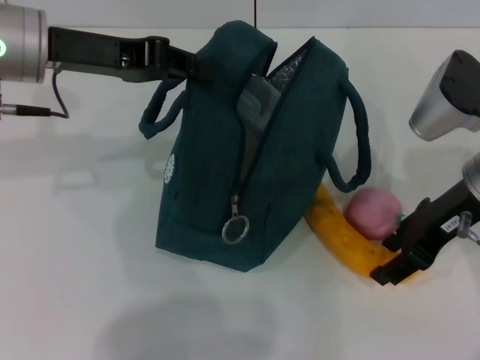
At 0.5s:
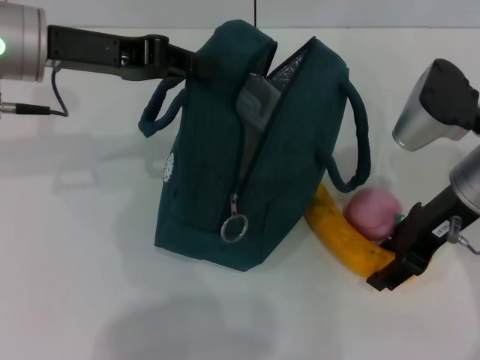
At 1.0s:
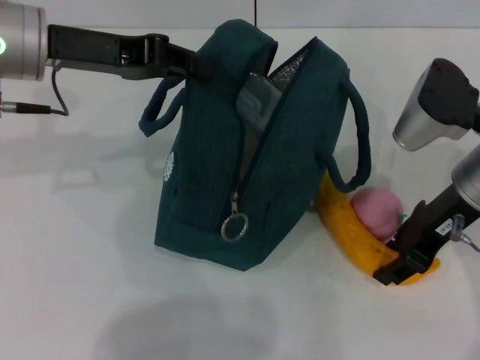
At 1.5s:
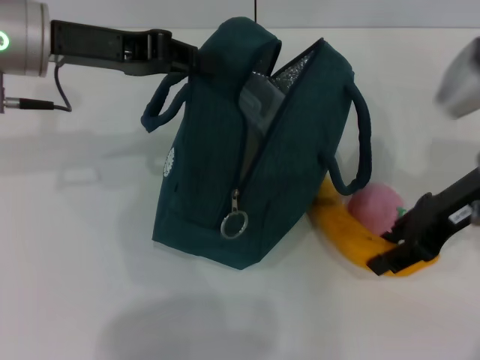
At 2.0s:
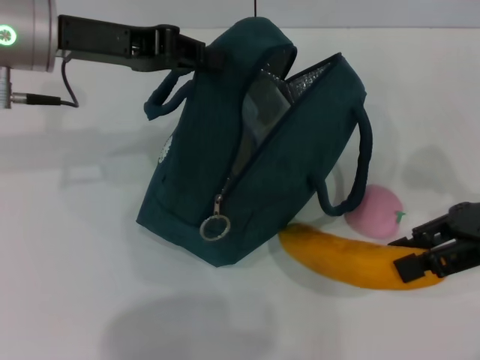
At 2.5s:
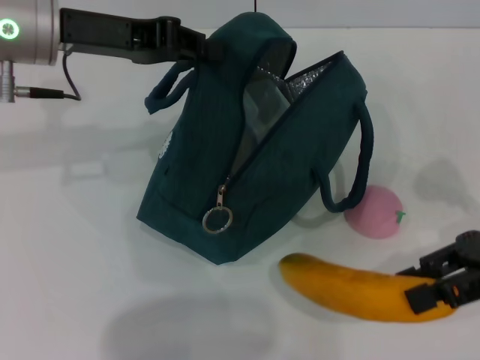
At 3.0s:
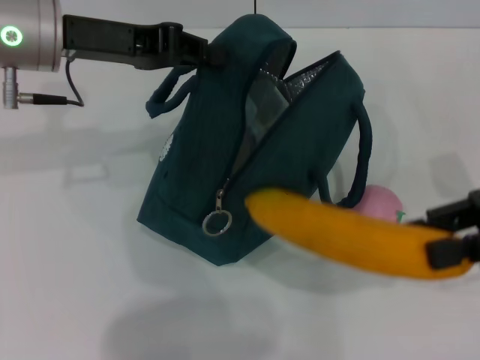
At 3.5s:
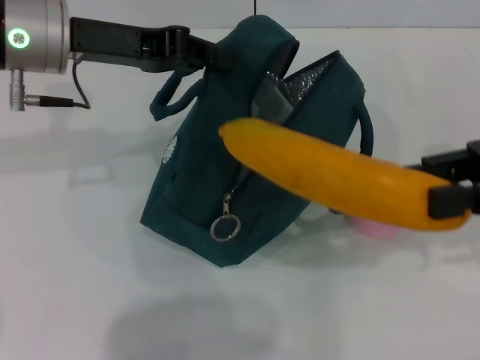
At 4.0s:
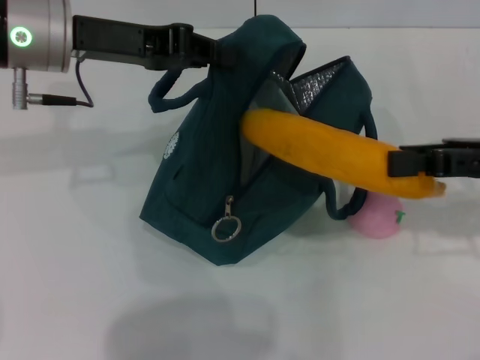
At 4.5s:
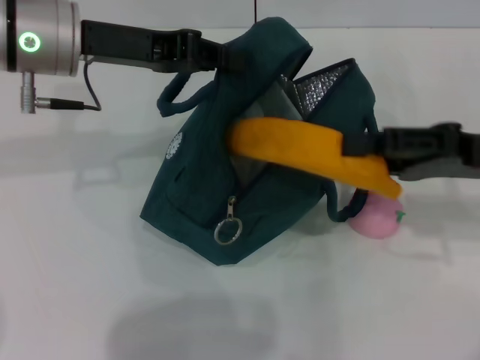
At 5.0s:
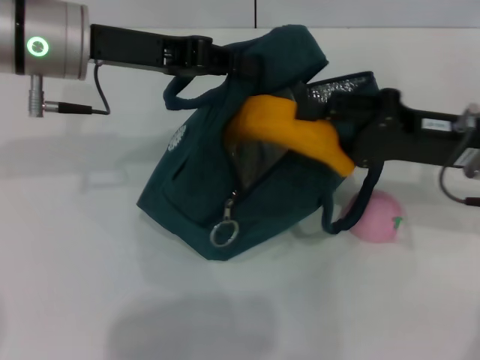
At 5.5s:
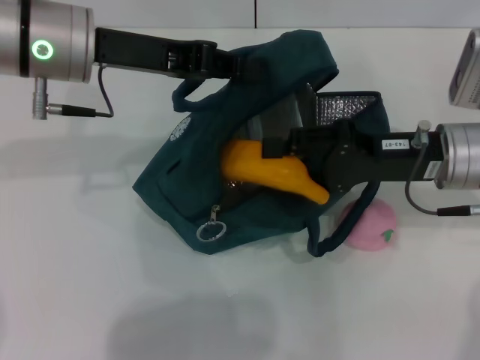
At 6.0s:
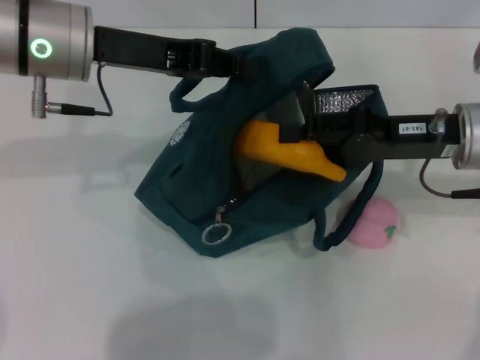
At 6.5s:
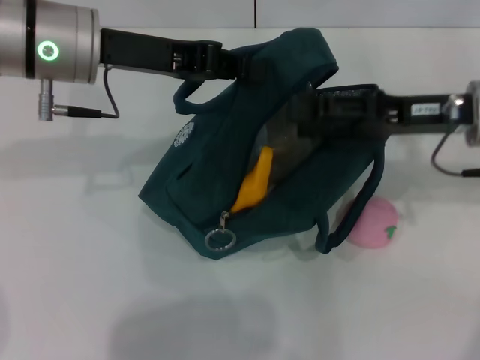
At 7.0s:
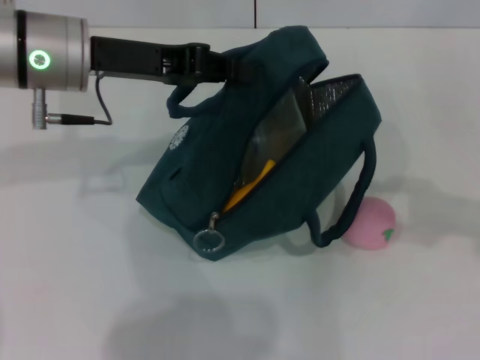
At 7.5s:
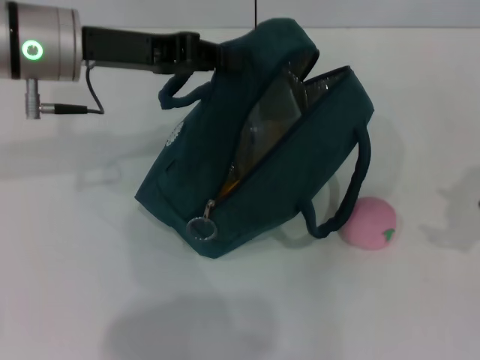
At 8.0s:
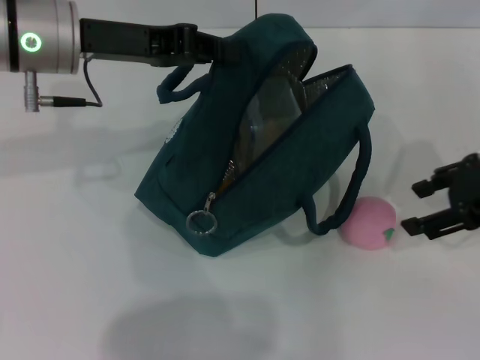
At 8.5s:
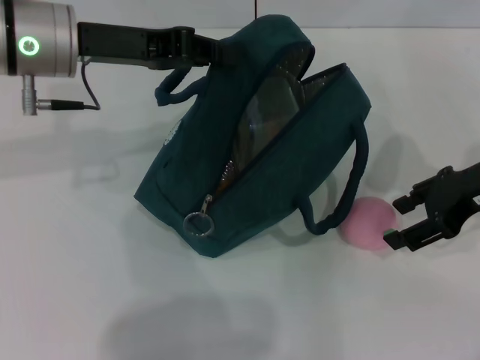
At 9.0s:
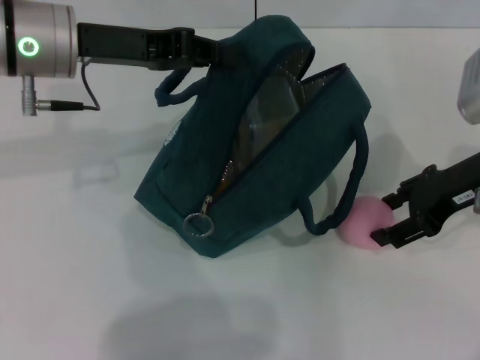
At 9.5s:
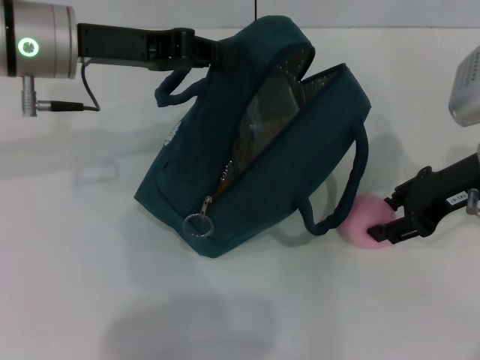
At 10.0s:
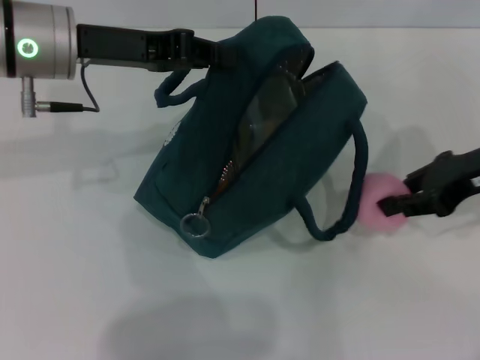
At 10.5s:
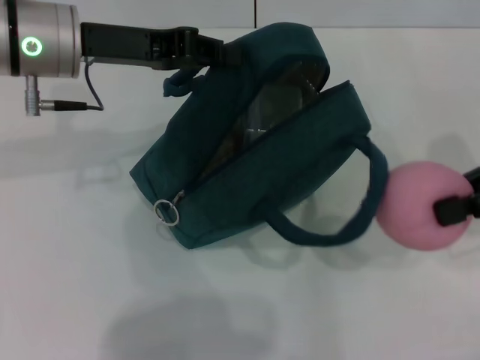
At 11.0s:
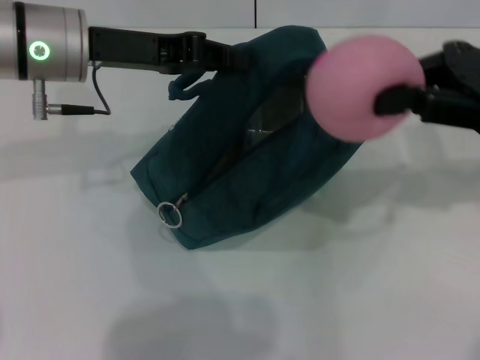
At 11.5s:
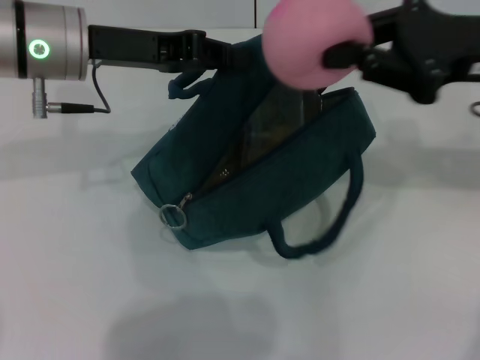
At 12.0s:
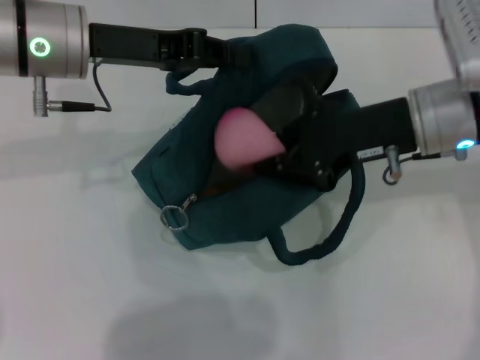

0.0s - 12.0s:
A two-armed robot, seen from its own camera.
Step, 1.5s - 6.5s: Put the banana into the lunch bag with your right hand.
Step, 7.0s - 9.5s: Grab the peach with your right hand.
0.0s - 2.0s: The right gripper is displaced to the right by approximately 10 cm.
4.0s - 6.0s: The right gripper is displaced to the left by approximately 5 cm.
6.0s - 8.0s: The right gripper moves to the right, roughly 5 cm.
8.0s - 10.0s: The right gripper closes up.
10.0s - 12.0s: The right gripper is displaced to the left by about 10 cm.

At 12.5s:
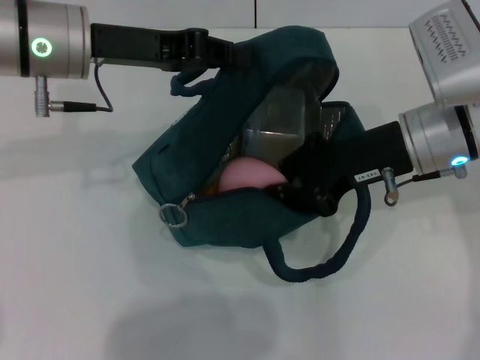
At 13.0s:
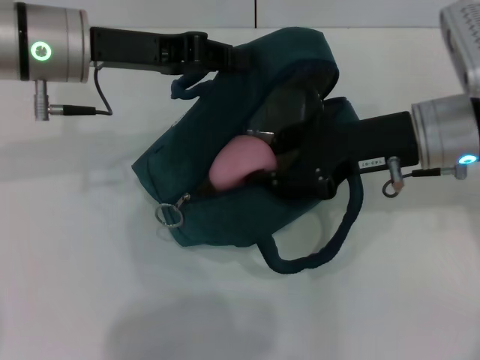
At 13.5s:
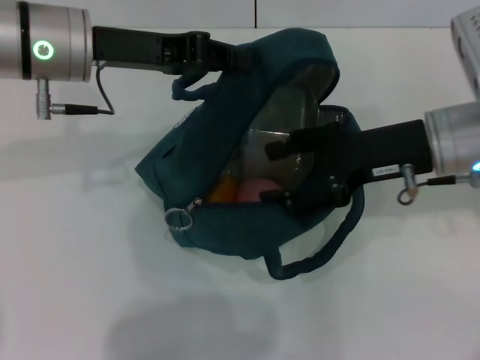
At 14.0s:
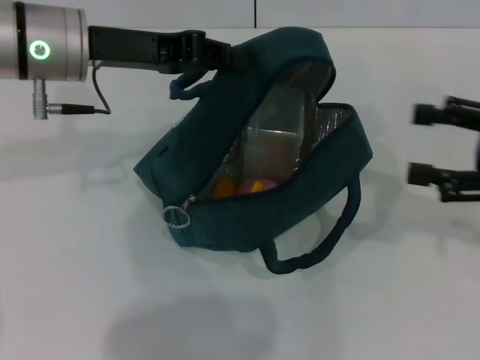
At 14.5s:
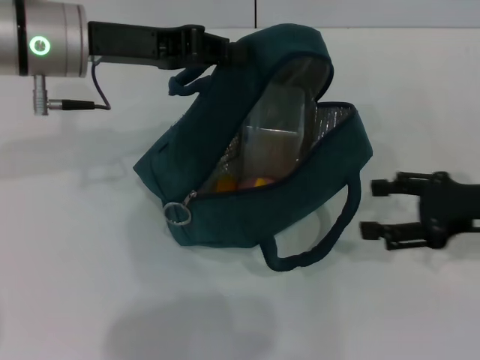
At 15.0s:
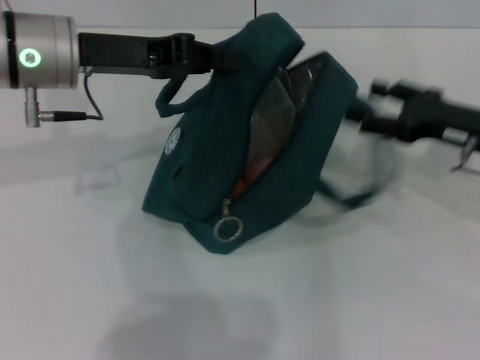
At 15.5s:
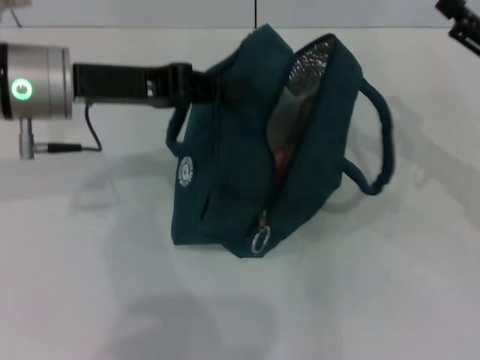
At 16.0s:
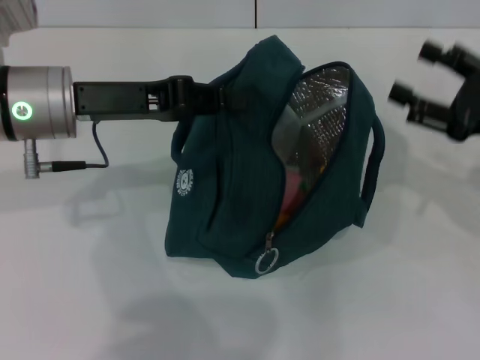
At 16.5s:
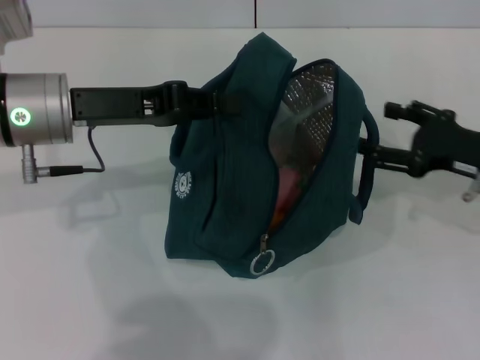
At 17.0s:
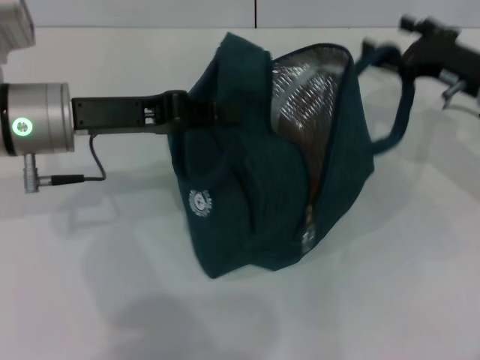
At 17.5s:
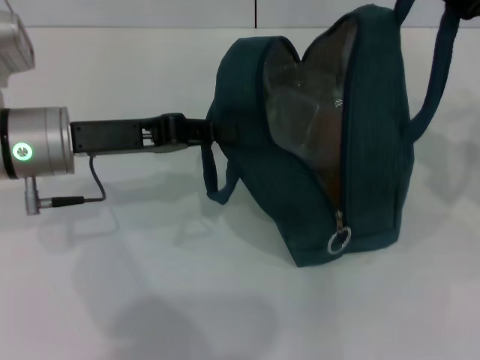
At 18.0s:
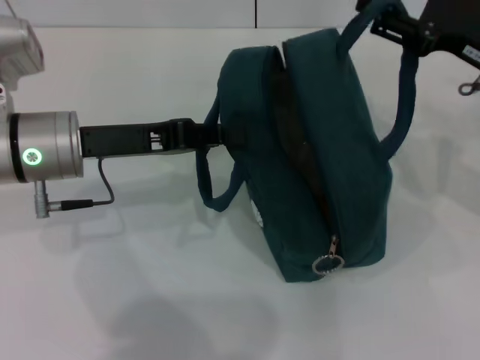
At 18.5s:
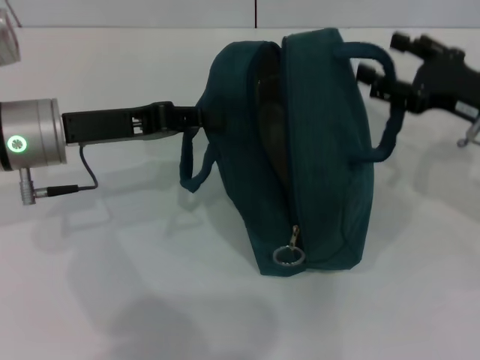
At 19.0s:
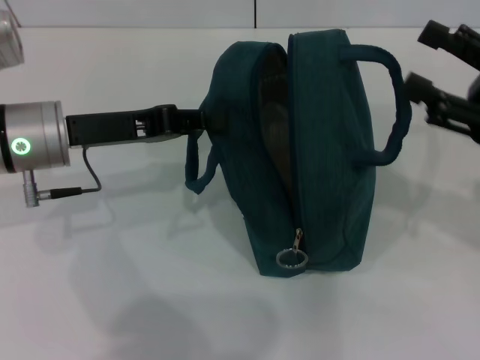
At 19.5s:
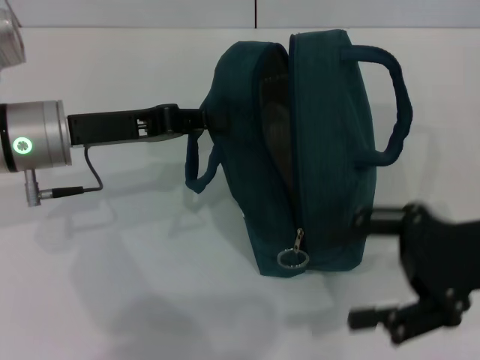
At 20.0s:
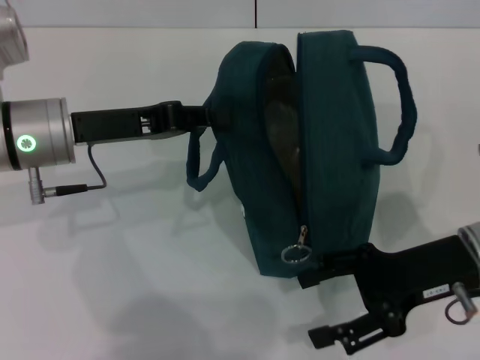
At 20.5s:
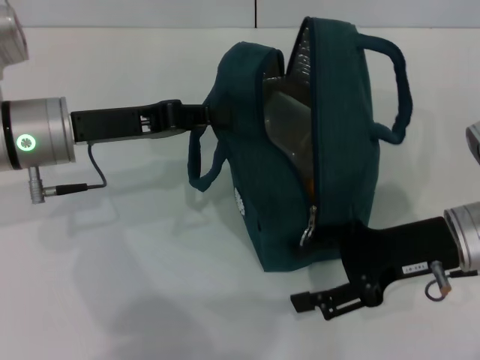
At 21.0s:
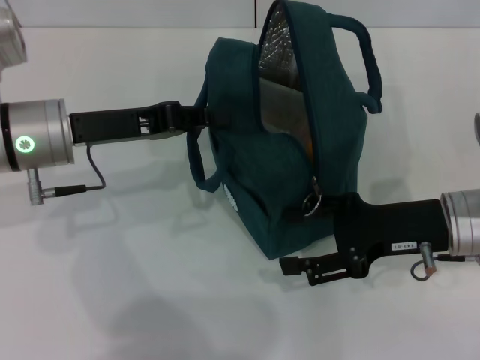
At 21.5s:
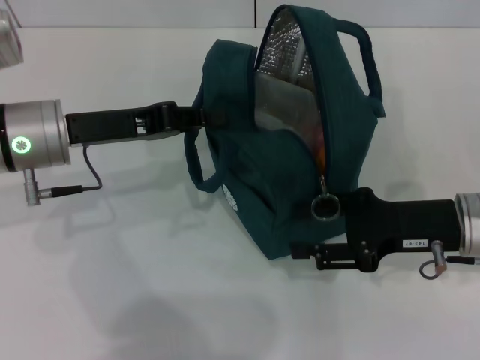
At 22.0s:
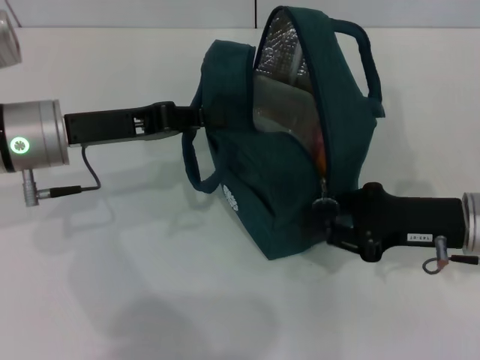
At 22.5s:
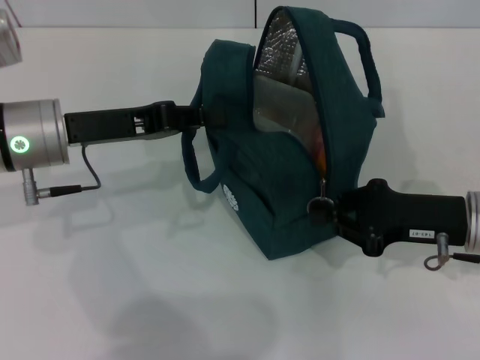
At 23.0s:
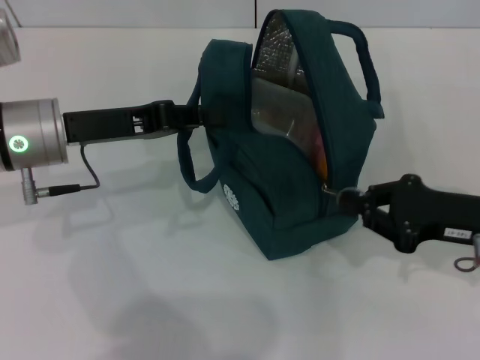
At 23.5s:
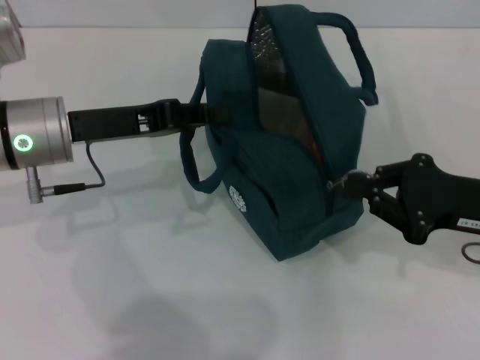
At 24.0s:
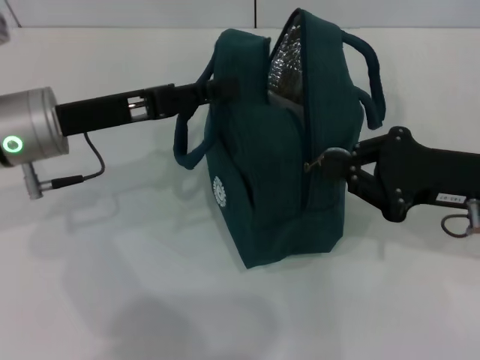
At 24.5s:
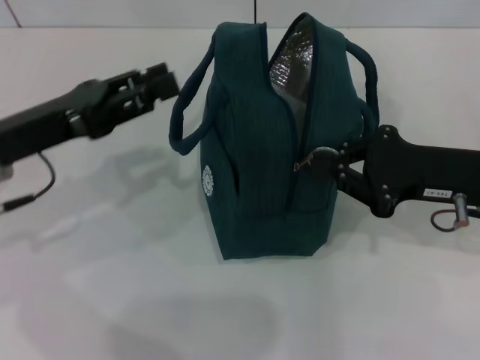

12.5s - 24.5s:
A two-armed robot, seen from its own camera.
Step, 14.0s - 18.5s: Hold the lunch bag with your right hand.
12.5s - 14.5s: The right gripper heads to the right and backward, covering about 15 cm, and opens its fingers.
14.5s - 16.5s: The left gripper shifts by about 5 cm.
18.5s - 20.5s: The right gripper travels to the left and backward by roughly 10 cm.
20.5s - 22.5s: The right gripper closes up.
22.5s - 24.5s: The left gripper ends up approximately 5 cm from where it was, and opens up.

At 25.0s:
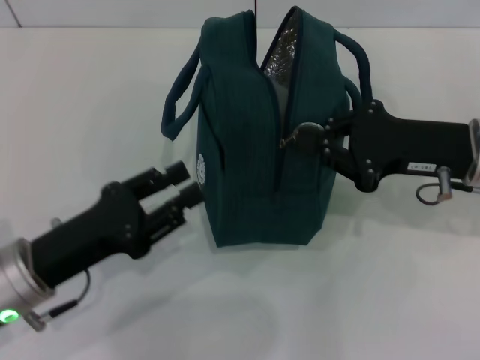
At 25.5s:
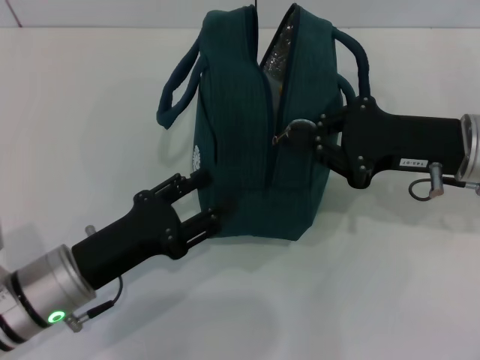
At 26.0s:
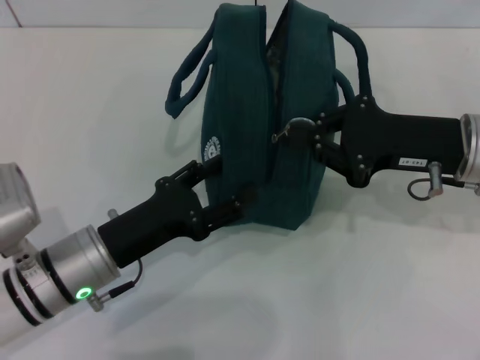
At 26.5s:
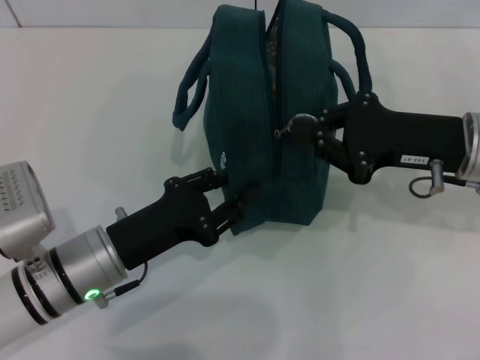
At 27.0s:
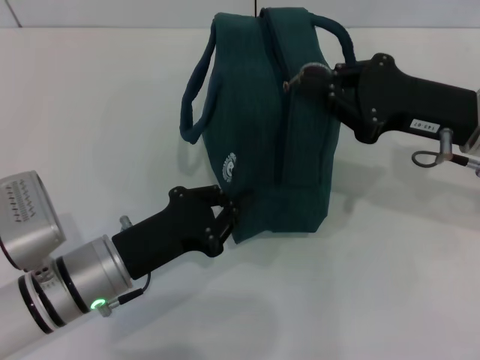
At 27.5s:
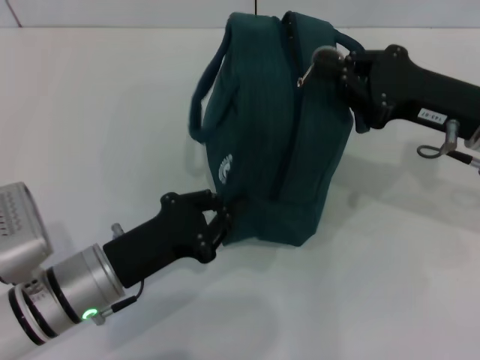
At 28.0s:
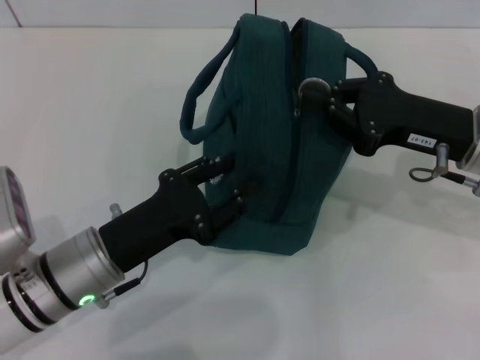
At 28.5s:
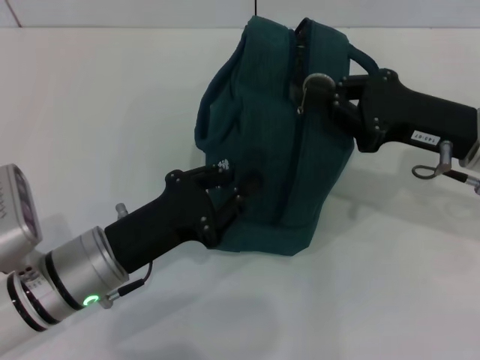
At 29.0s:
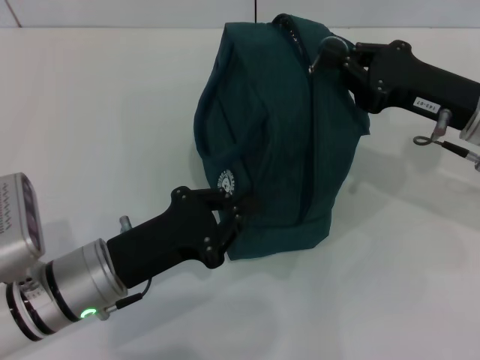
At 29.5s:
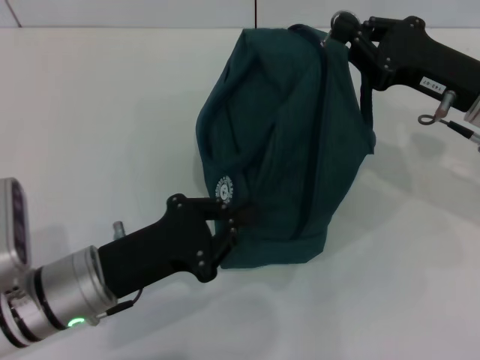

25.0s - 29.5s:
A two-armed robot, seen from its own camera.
25.0s - 27.0s: The left gripper is displaced to the right by some 5 cm, and closes its fingers.
